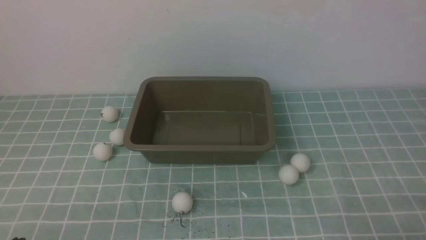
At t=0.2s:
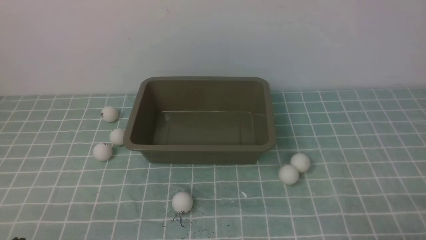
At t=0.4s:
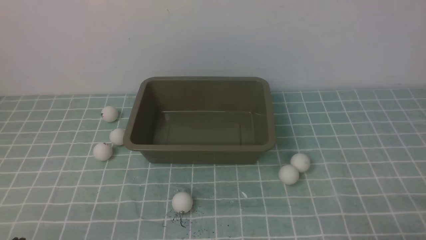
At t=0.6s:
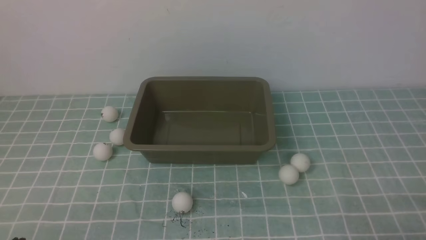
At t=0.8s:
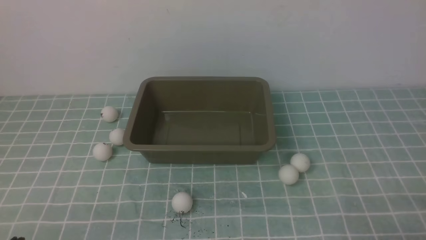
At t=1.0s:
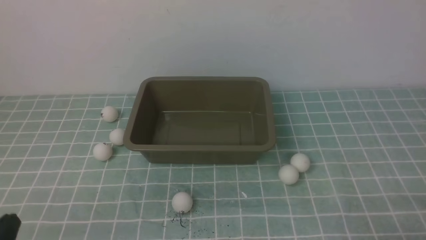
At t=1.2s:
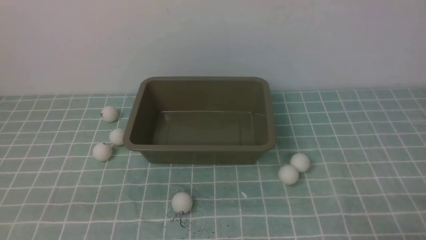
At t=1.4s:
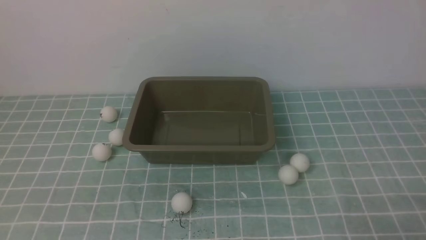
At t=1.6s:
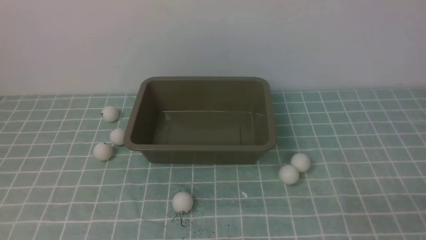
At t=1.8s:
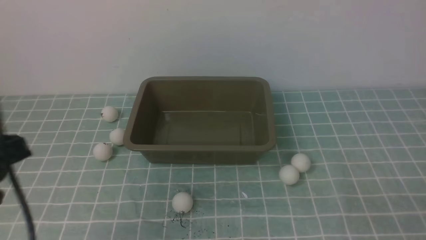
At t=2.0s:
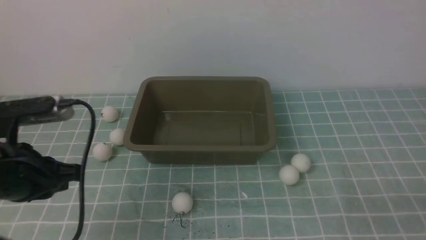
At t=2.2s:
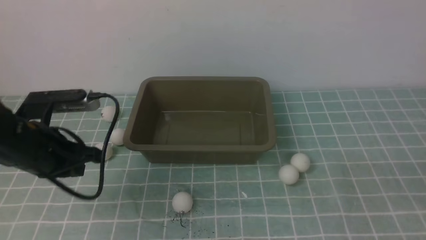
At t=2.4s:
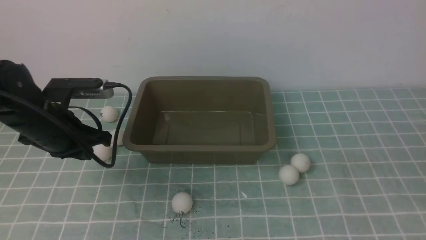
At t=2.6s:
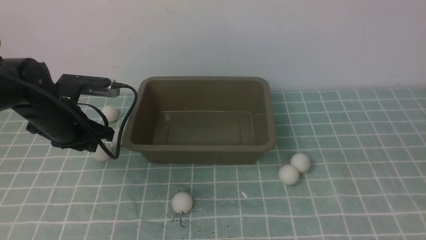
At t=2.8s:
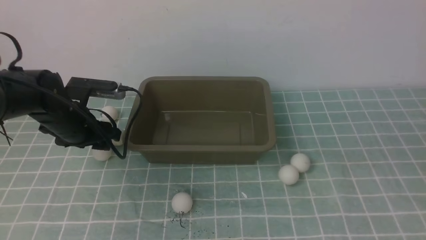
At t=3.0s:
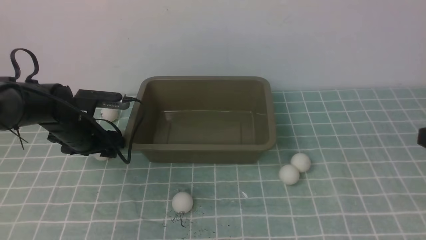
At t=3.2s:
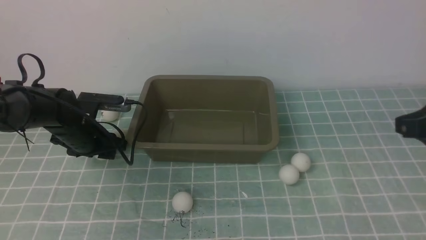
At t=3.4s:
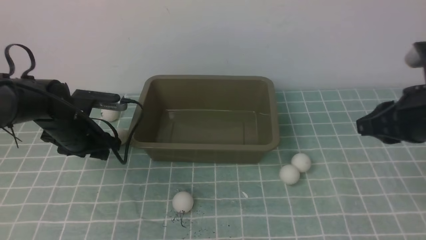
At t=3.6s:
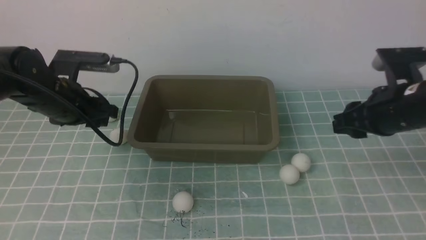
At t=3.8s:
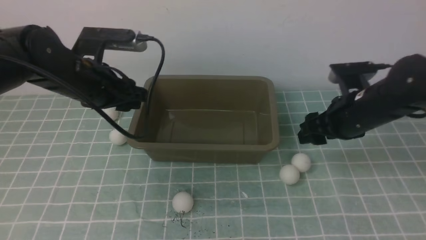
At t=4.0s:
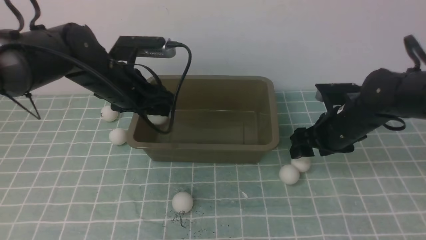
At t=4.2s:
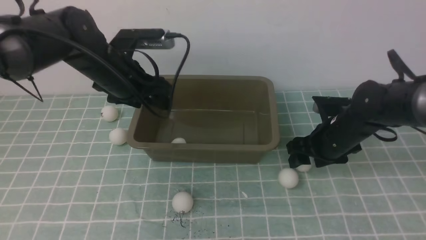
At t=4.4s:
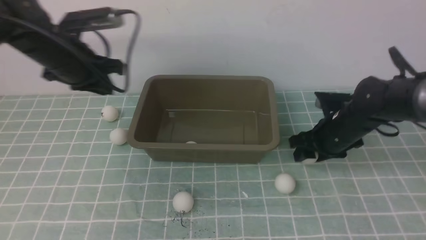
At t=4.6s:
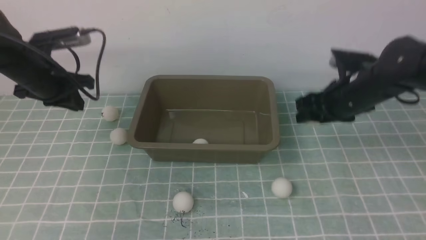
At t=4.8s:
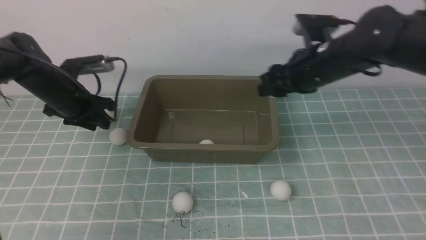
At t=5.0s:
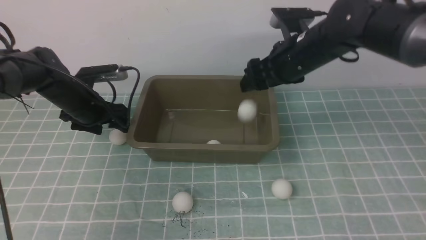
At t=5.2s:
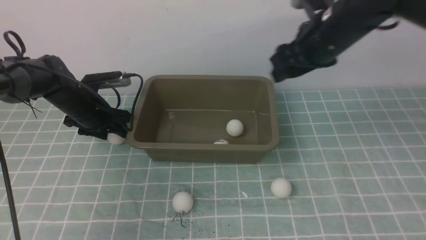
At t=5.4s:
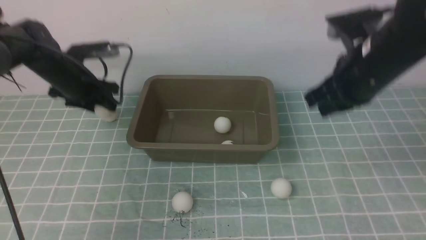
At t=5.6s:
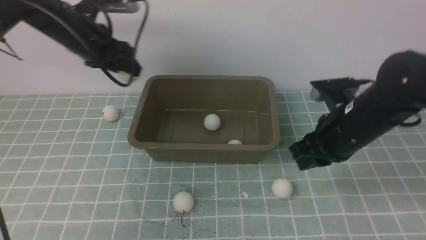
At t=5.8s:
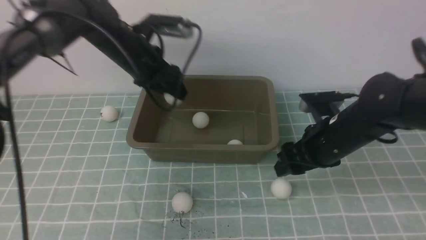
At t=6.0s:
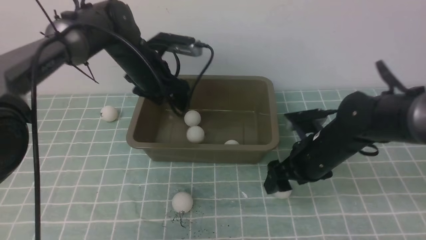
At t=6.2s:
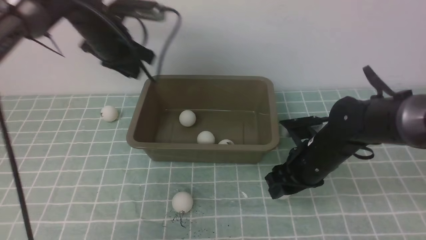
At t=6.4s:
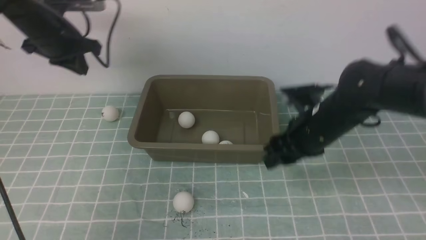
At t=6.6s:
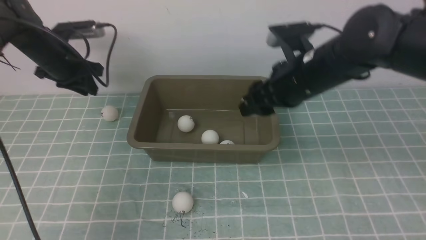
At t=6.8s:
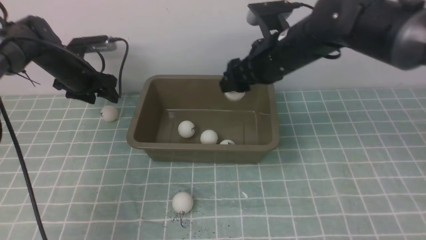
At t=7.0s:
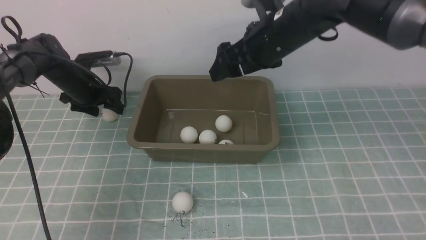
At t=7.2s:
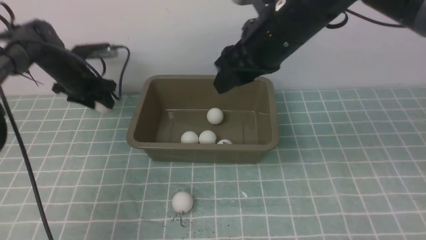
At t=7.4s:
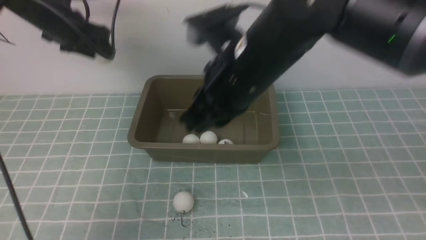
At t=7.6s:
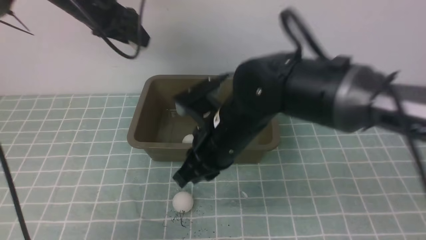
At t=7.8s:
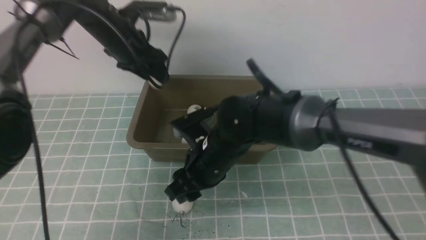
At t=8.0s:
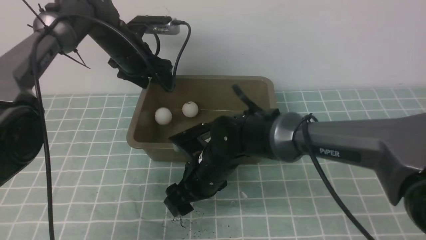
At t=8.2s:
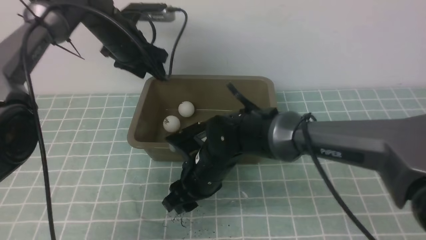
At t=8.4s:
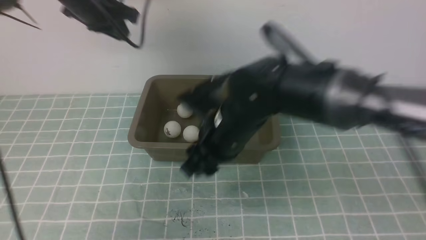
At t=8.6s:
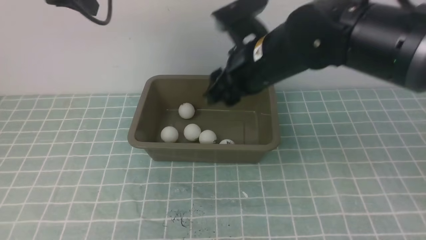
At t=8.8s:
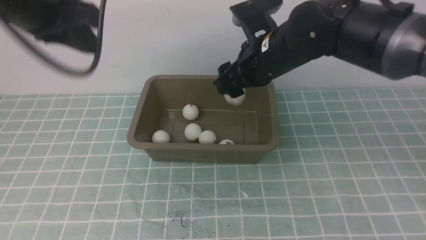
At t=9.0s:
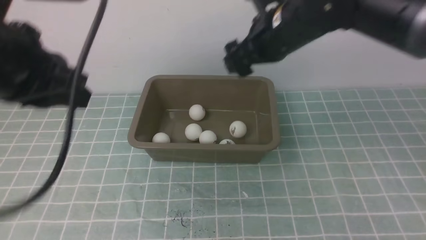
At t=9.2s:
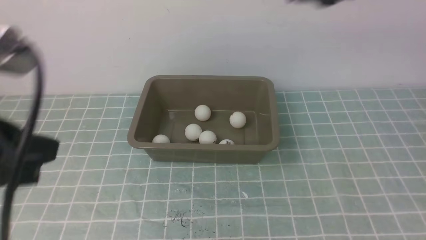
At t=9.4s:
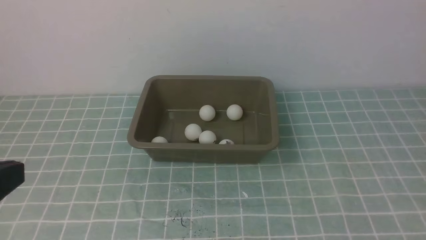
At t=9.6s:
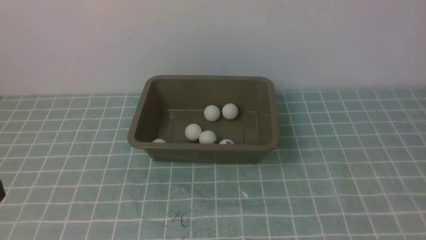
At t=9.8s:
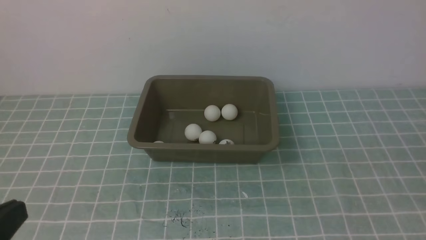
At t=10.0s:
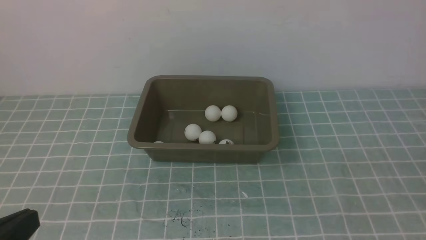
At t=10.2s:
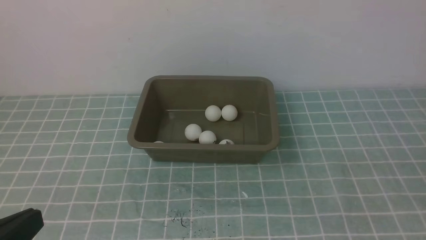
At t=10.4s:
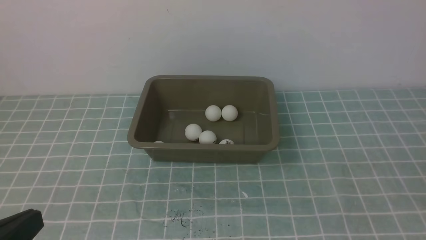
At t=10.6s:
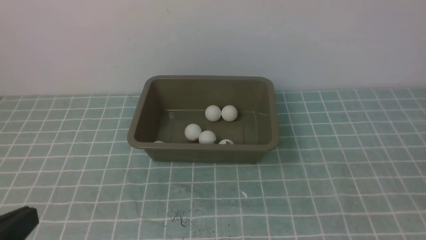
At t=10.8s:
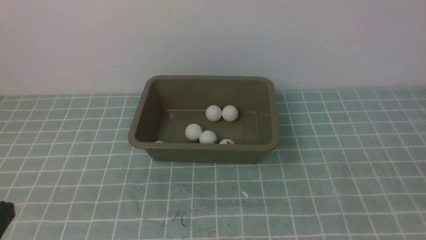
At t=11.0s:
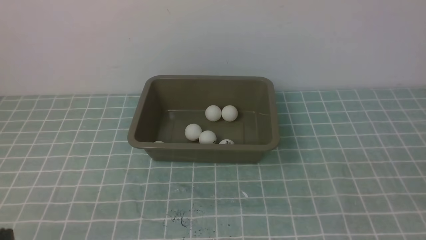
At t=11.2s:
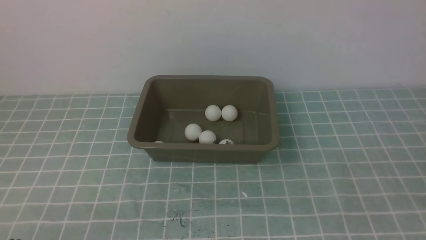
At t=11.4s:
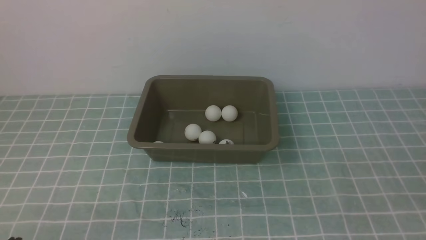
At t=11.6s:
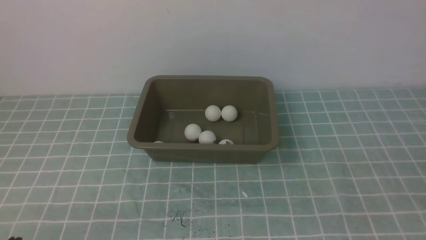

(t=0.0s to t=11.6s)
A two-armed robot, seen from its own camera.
Step, t=0.0s - t=3.4s: use the left arm to clamp the table tennis ball closest to it.
Step, t=3.6s - t=4.0s: use the left arm to put the table tennis ball into the box.
Step, t=4.2s - t=4.6s: use the right arm to clamp the table tennis ball closest to it.
Step, t=4.8s - t=5.0s: use the right arm to put the table tennis ball into the box.
Step, t=5.4s - t=6.0s: use the left arm to put the table tennis ball into the box.
Step, t=6.4s - t=6.8s: use the right arm to put the table tennis ball into the box.
Step, t=7.4s - t=7.8s: use the left arm to put the table tennis ball into the box.
Step, t=8.0s - t=8.2s: use the right arm to clamp the table tennis ball closest to it.
Step, t=8.4s - t=8.8s: use the right arm to put the table tennis ball into the box.
t=1.4s - t=2.8s: The right gripper goes approximately 15 cm upward and forward; the left gripper goes about 30 cm forward, and opens its fingers.
t=2.8s - t=4.4s: The left gripper is displaced upward by roughly 10 cm, and closes its fingers, while the right gripper travels forward and downward by approximately 25 cm, and opens its fingers.
t=4.4s - t=5.8s: The right gripper shifts roughly 5 cm backward, goes upward and returns, some 15 cm each way, and closes, then reopens. Meanwhile the left gripper heads to the right, covering about 10 cm, and opens.
t=5.8s - t=7.2s: The left gripper goes about 15 cm to the left and forward, and closes, then opens again. The right gripper moves upward and to the left, about 20 cm, and closes.
t=7.2s - t=8.8s: The left gripper shifts about 30 cm backward and upward, and closes its fingers; the right gripper travels downward and back again, about 20 cm each way, and opens its fingers.
t=8.8s - t=10.2s: The right gripper moves backward and to the right, approximately 40 cm, and closes its fingers; the left gripper travels backward and downward by some 30 cm.
t=10.2s - t=11.6s: The left gripper moves downward, about 10 cm.

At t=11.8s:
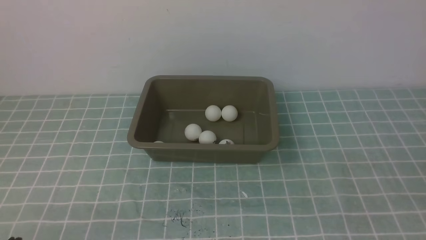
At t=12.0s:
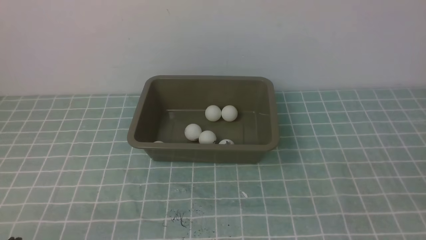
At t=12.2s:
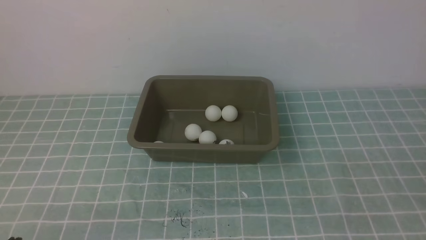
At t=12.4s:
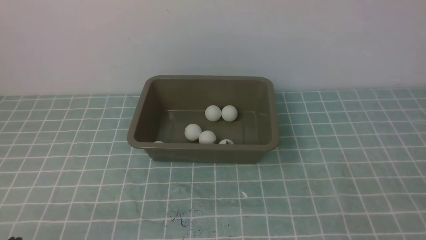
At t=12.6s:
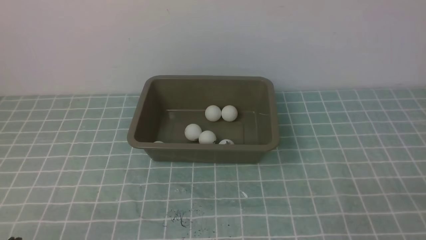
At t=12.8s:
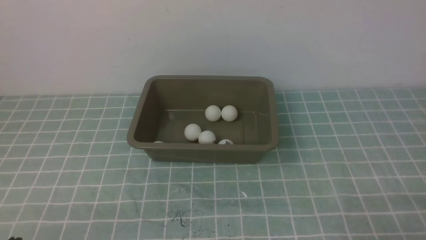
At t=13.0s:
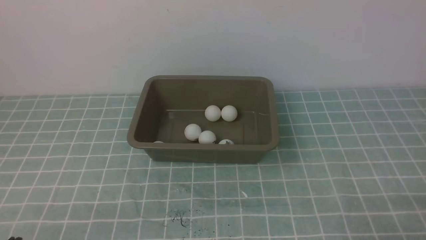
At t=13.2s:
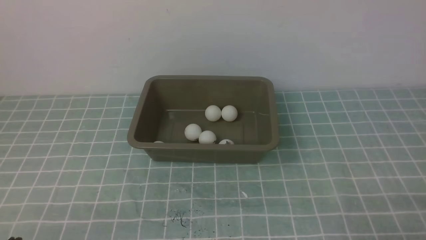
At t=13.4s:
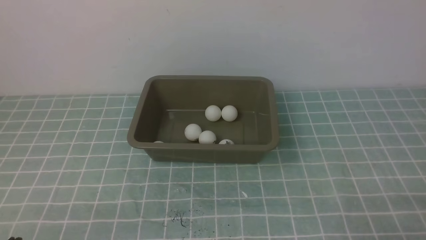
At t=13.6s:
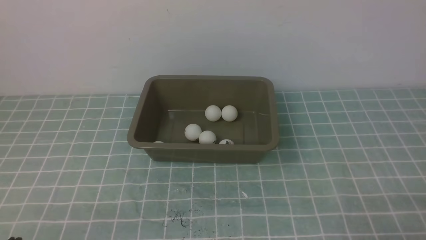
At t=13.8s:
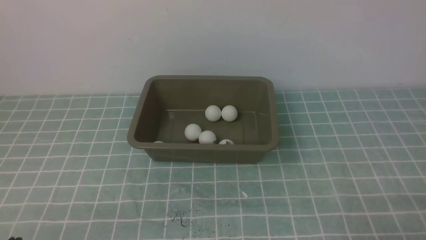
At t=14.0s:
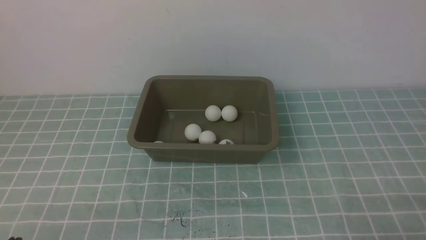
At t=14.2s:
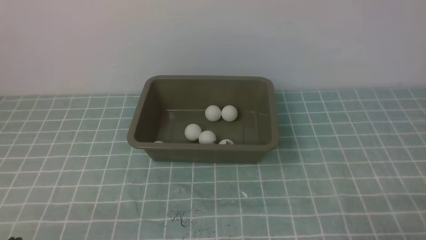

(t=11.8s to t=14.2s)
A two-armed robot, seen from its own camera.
t=13.0s - t=14.2s: Neither gripper changes place.
